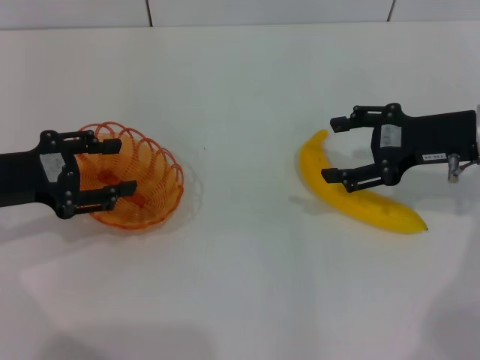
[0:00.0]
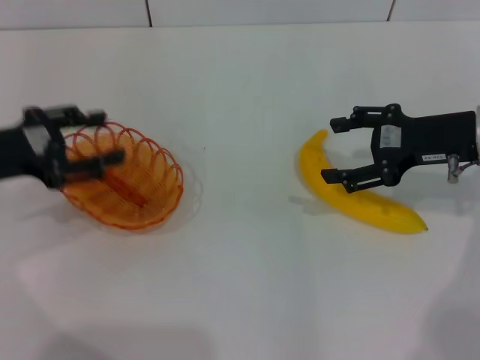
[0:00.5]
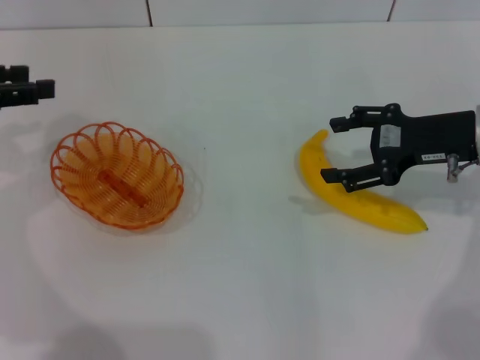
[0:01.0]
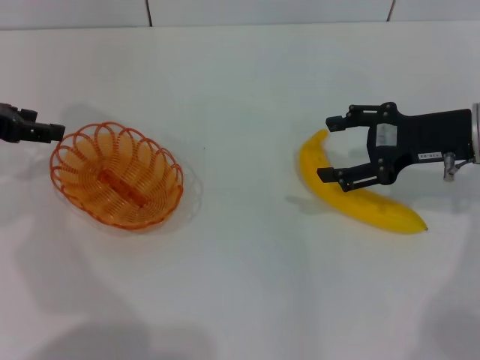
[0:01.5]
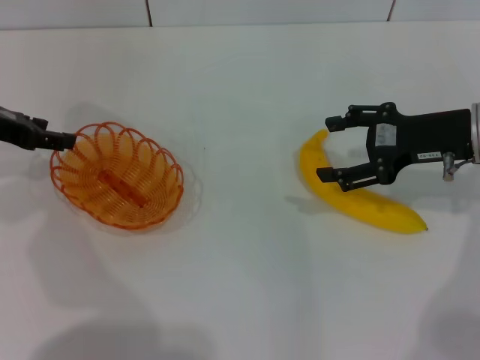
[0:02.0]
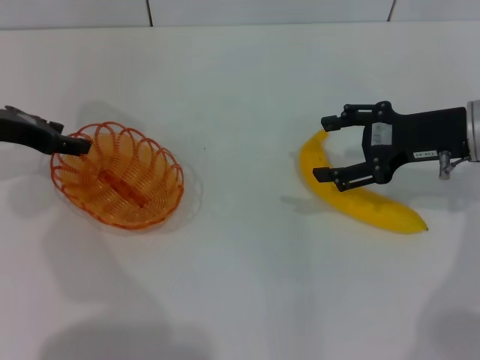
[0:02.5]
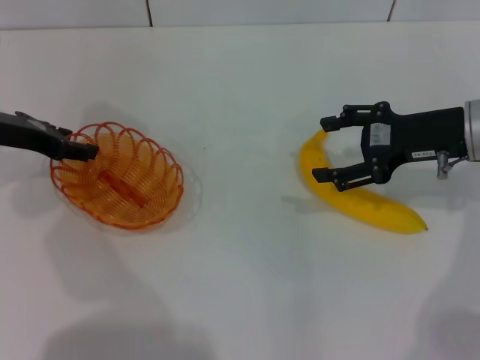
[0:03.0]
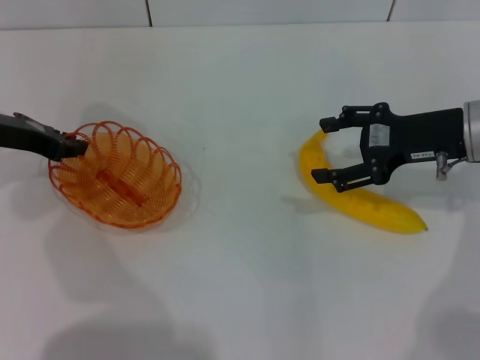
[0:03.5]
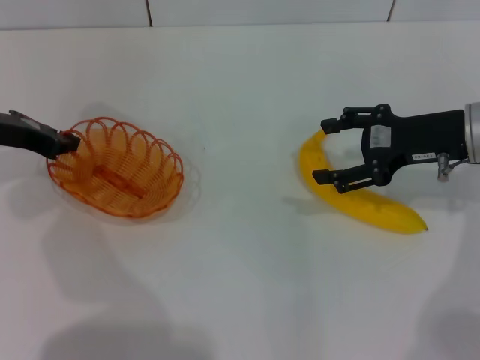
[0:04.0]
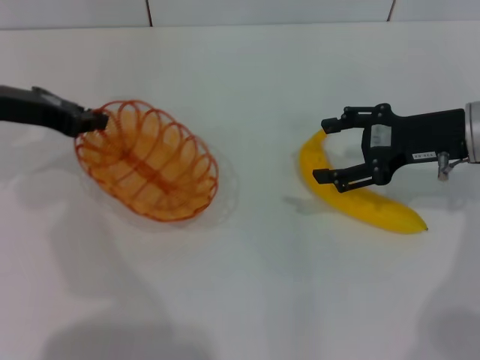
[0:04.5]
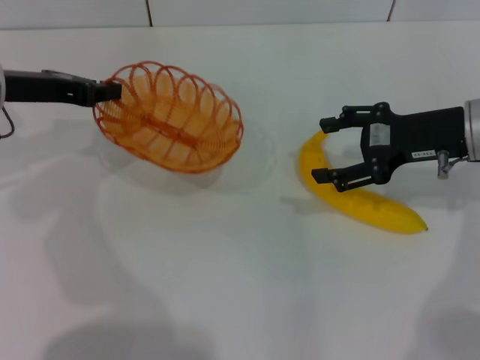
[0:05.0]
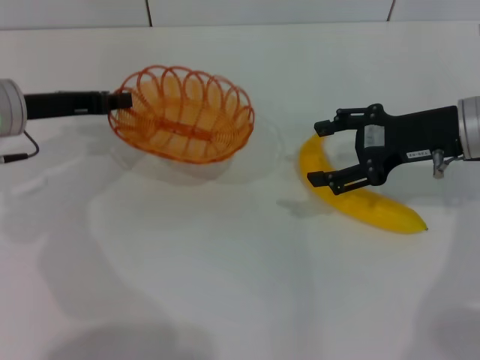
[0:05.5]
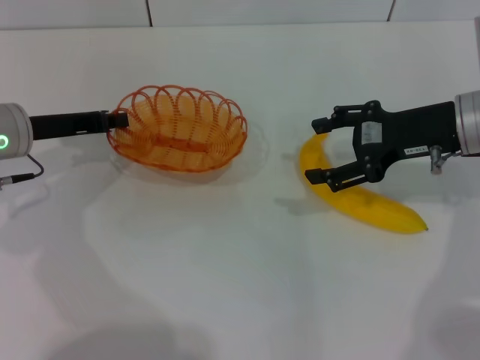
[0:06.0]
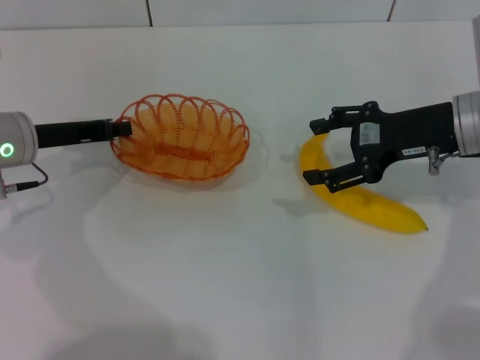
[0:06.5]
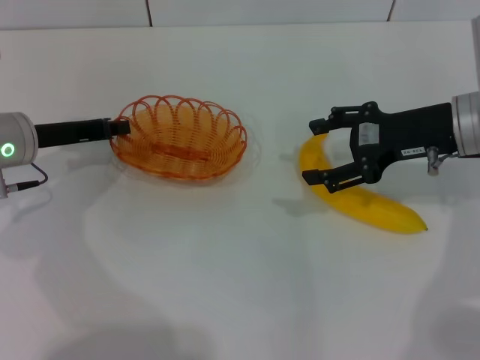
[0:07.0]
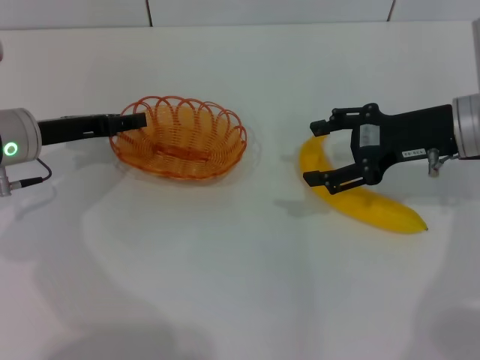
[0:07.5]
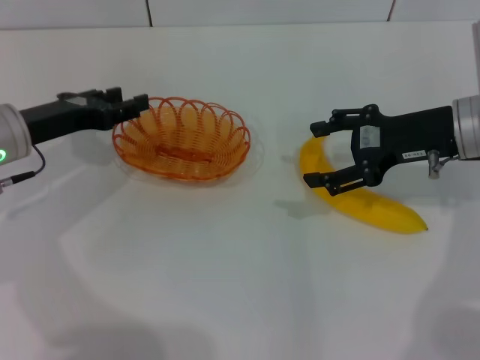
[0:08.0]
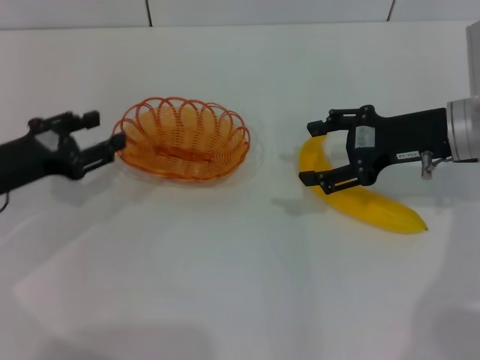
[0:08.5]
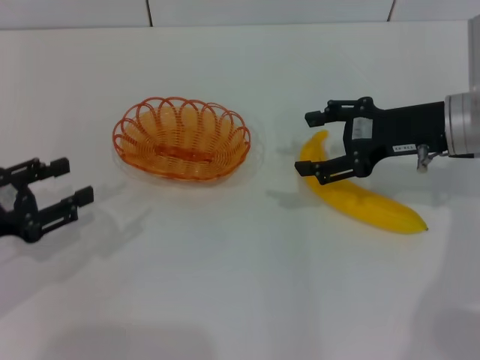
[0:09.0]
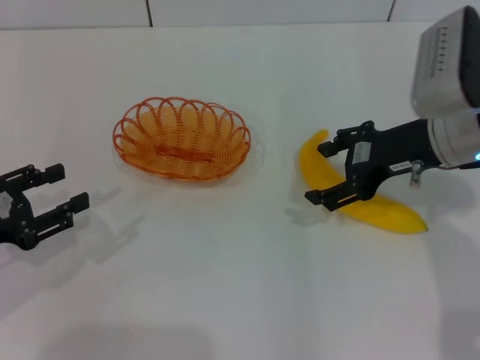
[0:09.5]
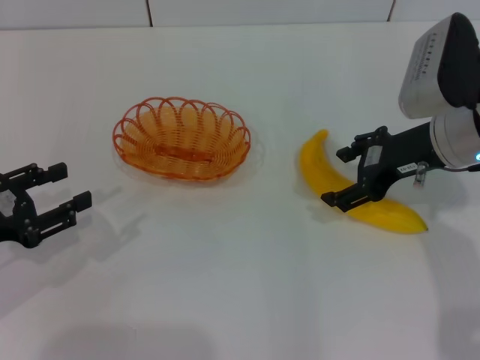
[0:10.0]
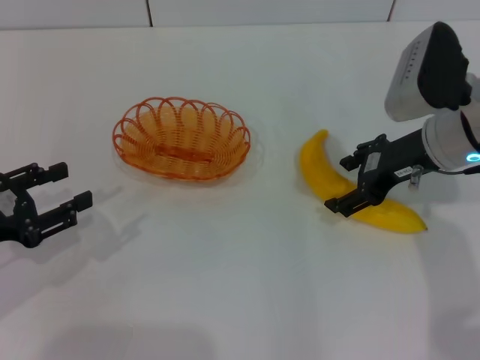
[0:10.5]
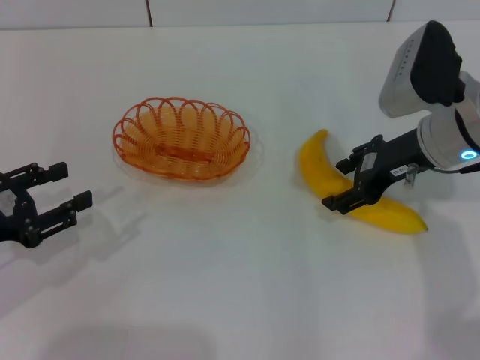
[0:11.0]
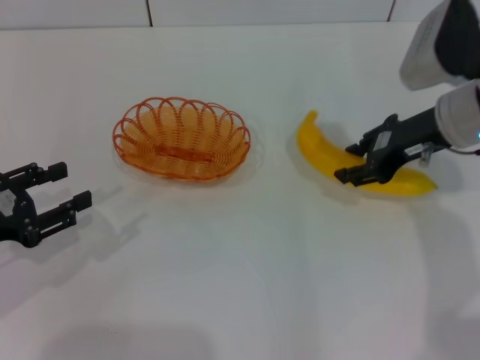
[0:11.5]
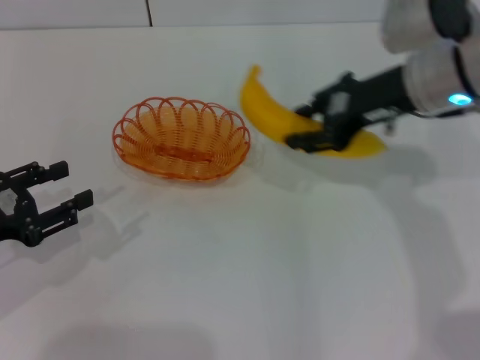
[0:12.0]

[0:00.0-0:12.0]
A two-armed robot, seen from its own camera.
Step, 0:00.0 to 0:04.0: Pick up the basket with the left gripper.
Step, 0:04.5 to 0:08.0: Place the basket in the center of view with the left gripper.
Step, 0:08.5 to 0:11.5: Pick up the banana with the right gripper.
0:00.0 to 0:02.0: The left gripper goes roughly 10 cm forward.
0:02.0 to 0:04.0: The left gripper closes.
0:06.0 to 0:08.0: The left gripper opens its fingers.
0:08.0 to 0:10.0: The left gripper travels backward and to the left by roughly 15 cm.
0:10.0 to 0:12.0: The right gripper shifts by some 5 cm, and closes.

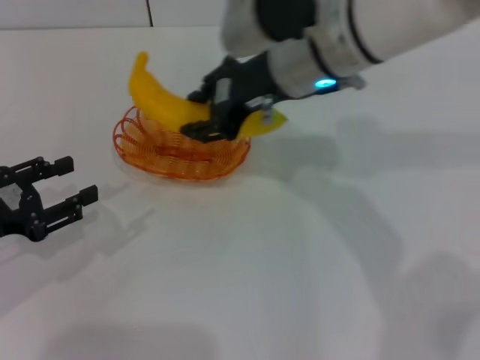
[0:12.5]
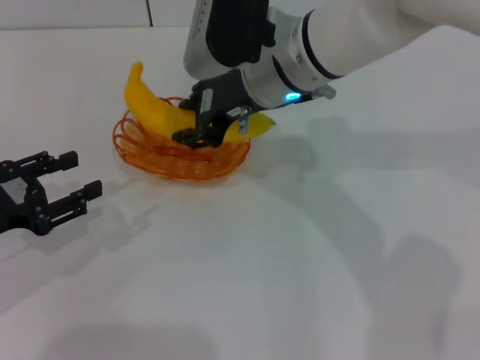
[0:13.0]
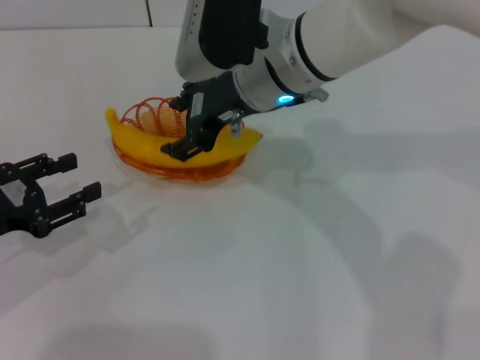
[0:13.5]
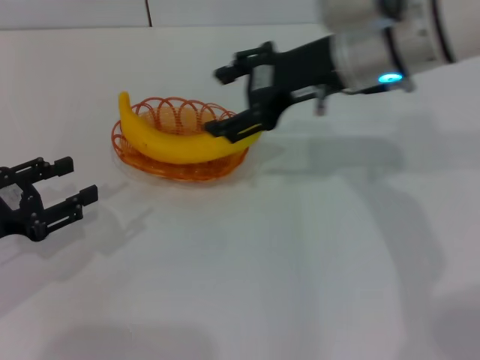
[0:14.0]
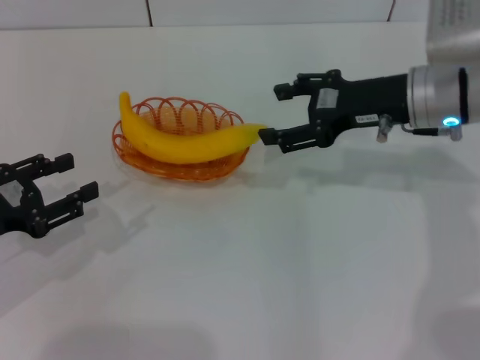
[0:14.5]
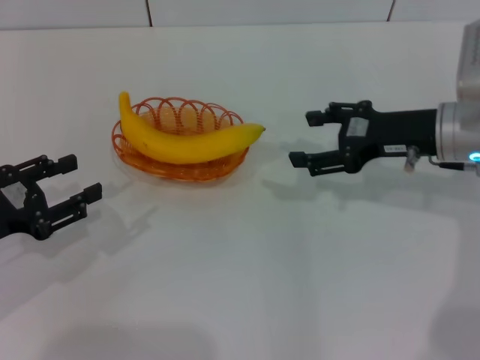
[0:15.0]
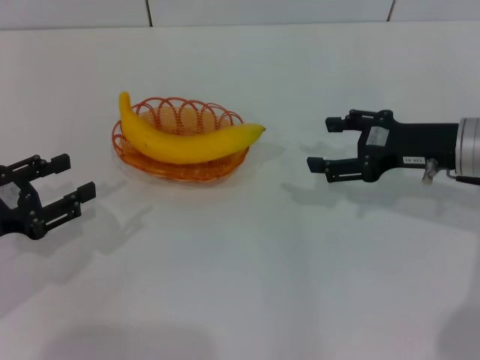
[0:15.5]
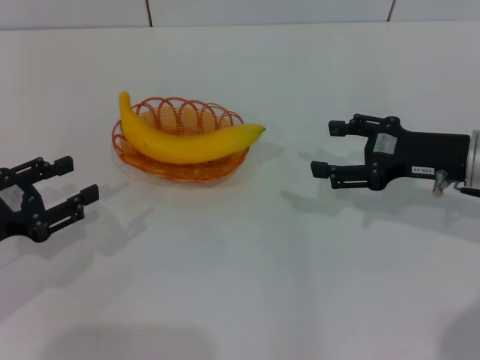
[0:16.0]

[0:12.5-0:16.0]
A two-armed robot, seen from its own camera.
Step, 0:12.5 to 0:13.5: Place the banana into the basket with the right gripper.
0:12.5 to 0:14.5: The right gripper heads to the right and downward, covering roughly 15 cm, and opens.
0:14.5 to 0:16.0: The right gripper heads to the right and backward, covering some 10 cm.

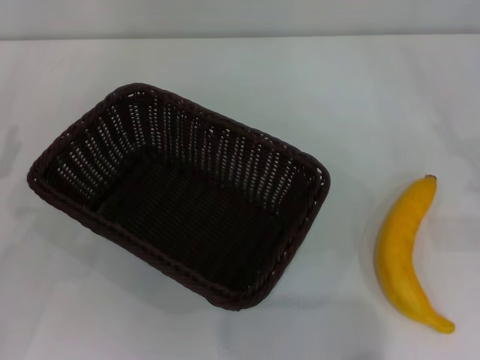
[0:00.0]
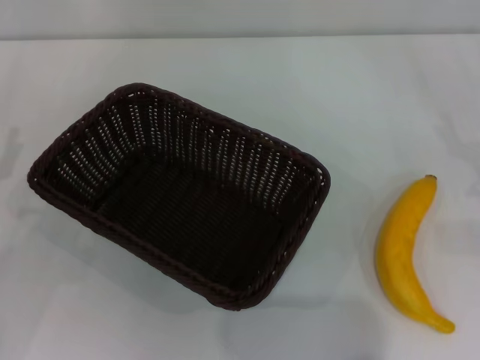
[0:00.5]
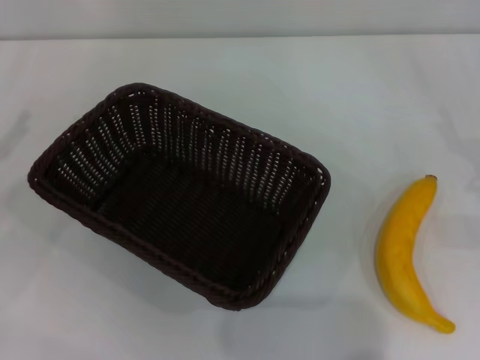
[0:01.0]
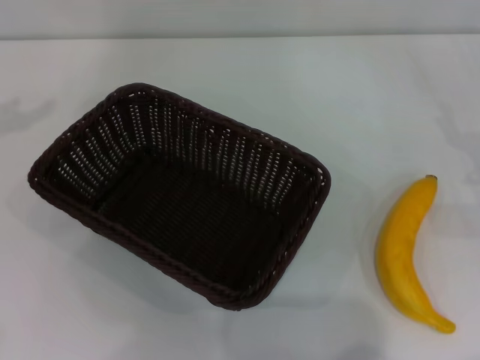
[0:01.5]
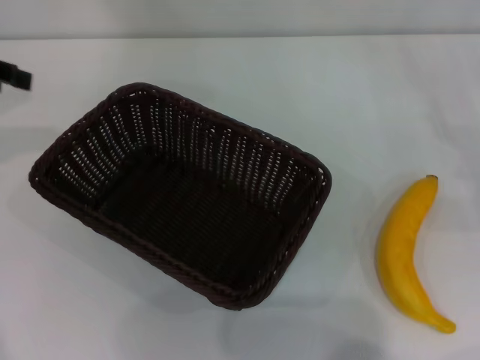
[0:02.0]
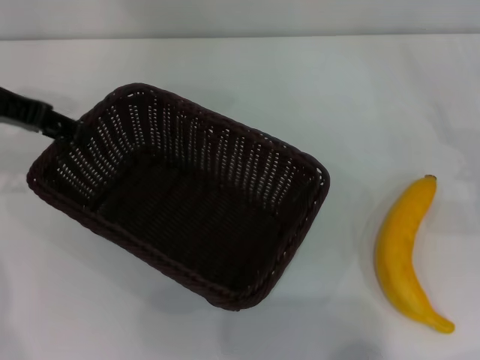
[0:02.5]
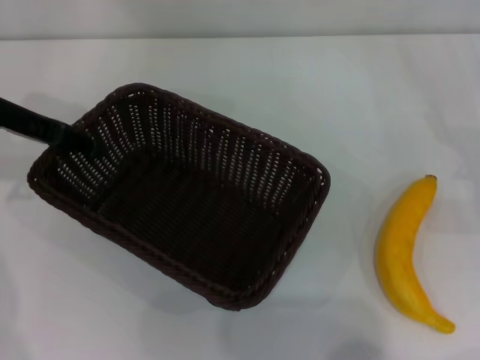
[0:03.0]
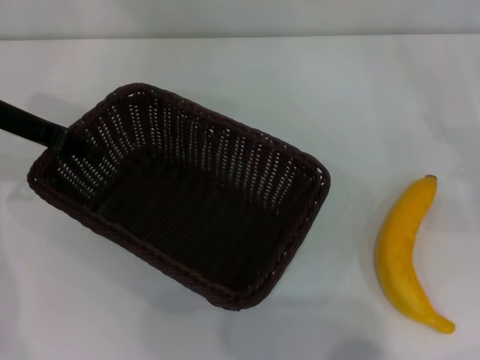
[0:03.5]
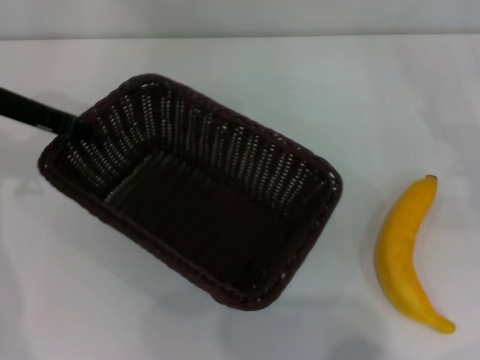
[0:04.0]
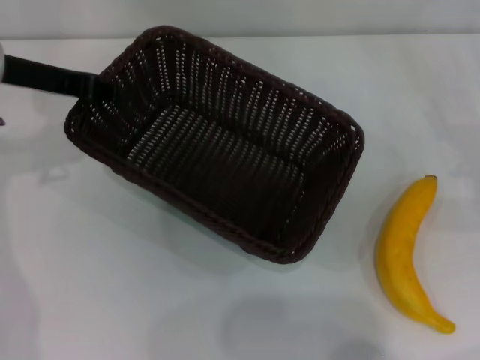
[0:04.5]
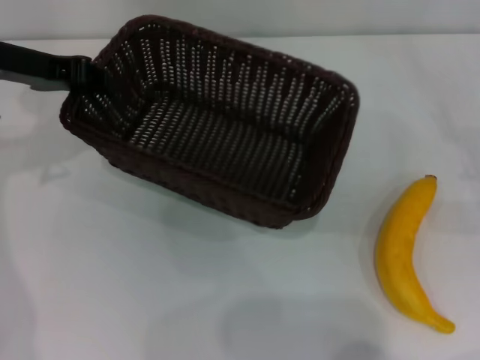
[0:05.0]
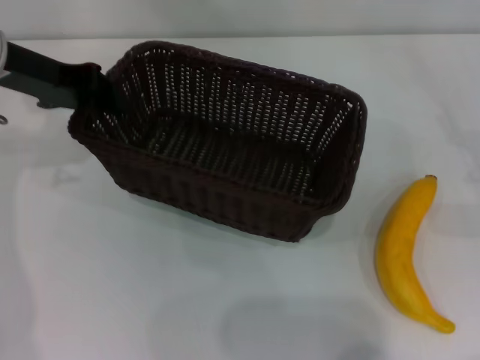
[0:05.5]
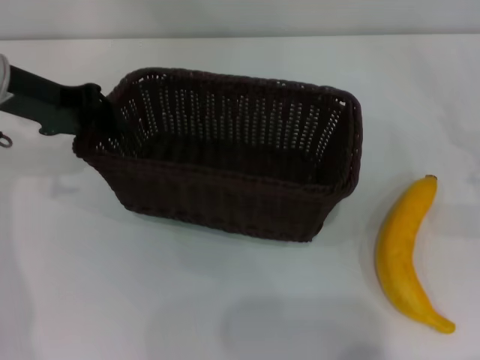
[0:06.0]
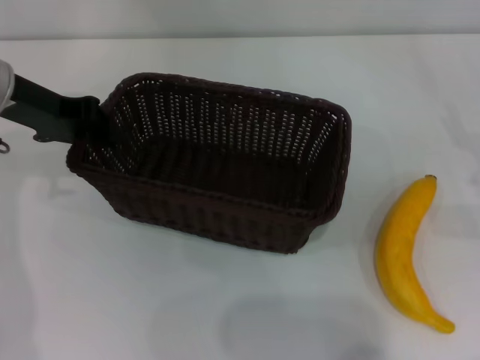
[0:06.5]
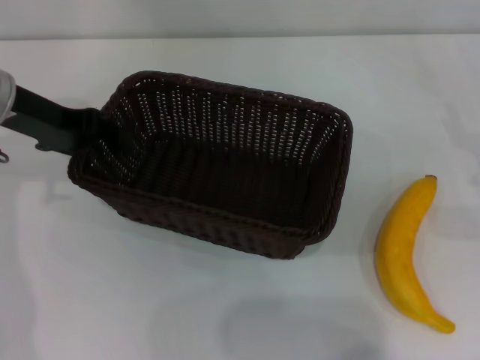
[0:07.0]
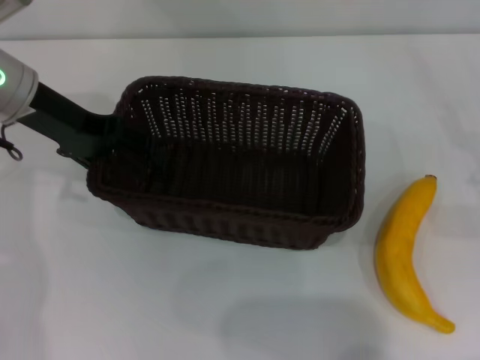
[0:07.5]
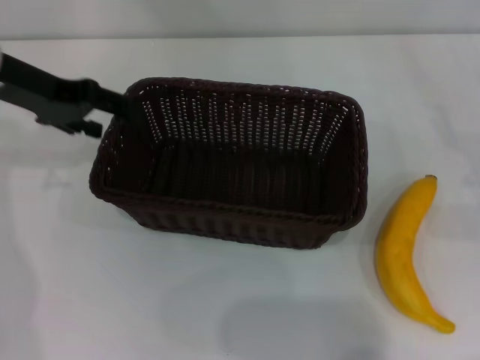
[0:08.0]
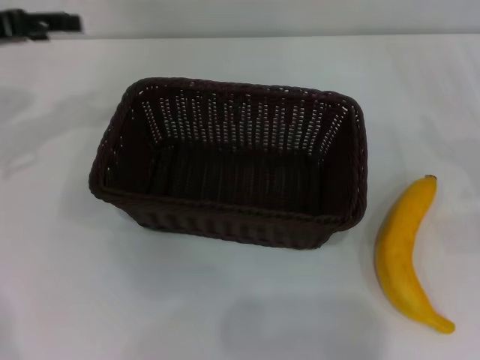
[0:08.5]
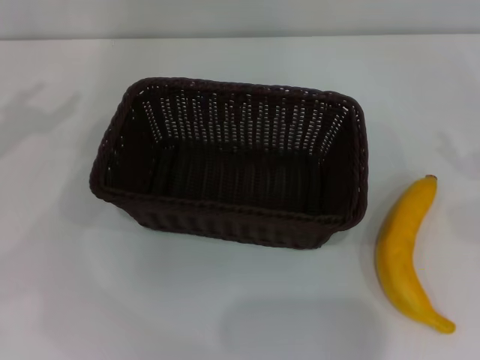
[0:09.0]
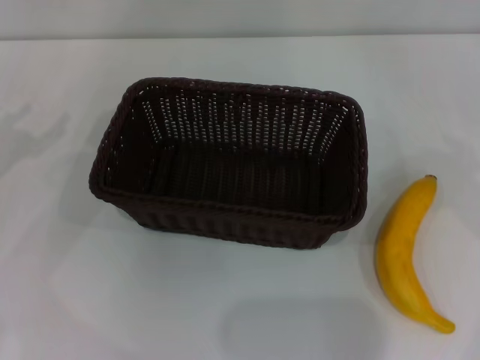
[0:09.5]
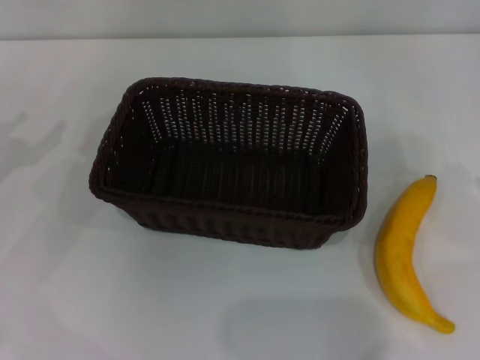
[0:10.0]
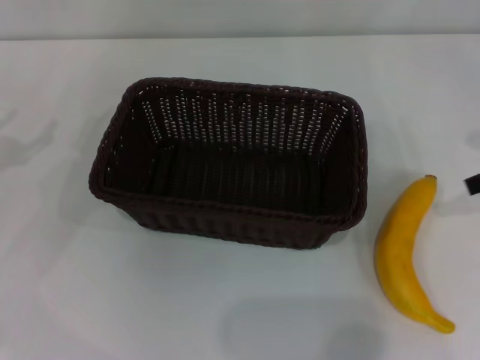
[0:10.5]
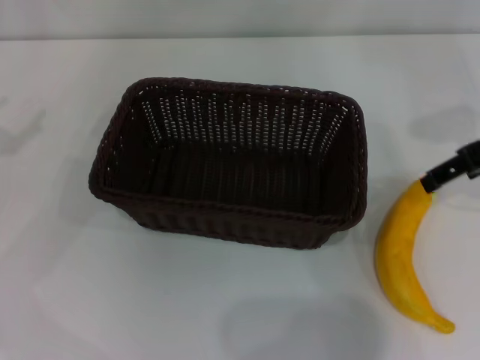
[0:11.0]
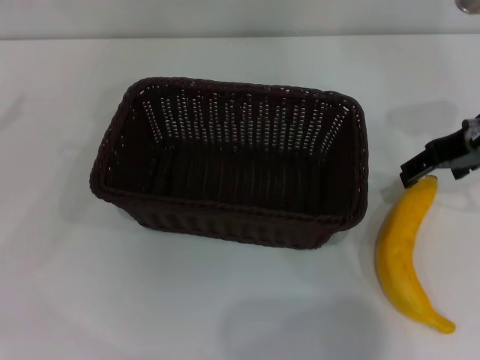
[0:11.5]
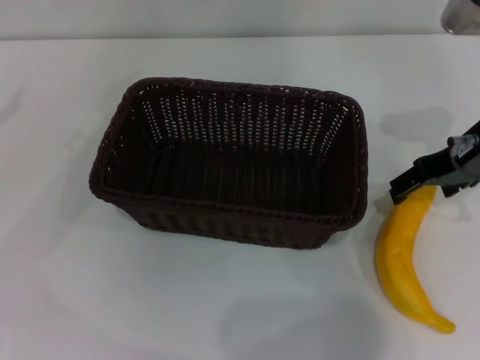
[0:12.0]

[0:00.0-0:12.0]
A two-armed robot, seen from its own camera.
Step, 0:00.0 to 0:04.5: Pick up the dark basket with the left gripper.
Step, 0:05.5 to 0:08.0: Place the dark basket in the center of view with the left gripper.
0:00.0 to 0:02.0: The left gripper goes roughly 20 cm upward and forward.
0:02.0 to 0:04.0: The left gripper is displaced to the right and downward by approximately 10 cm, and closes its fingers.
0:06.0 to 0:08.0: The left gripper opens.
0:08.0 to 0:10.0: The left gripper shifts about 15 cm to the left, backward and downward.
0:10.0 to 0:12.0: The right gripper goes roughly 20 cm to the left.
